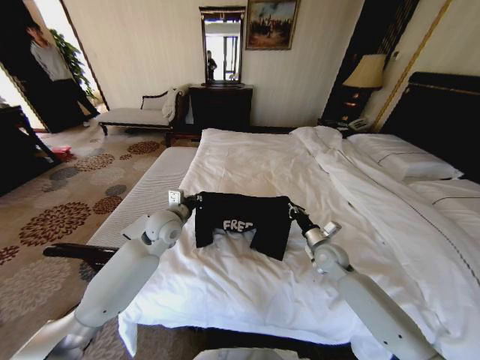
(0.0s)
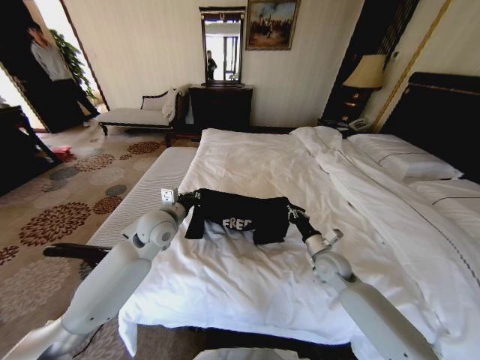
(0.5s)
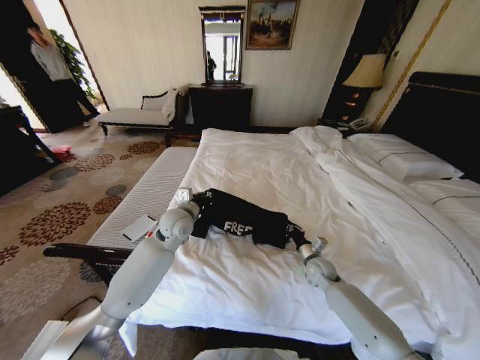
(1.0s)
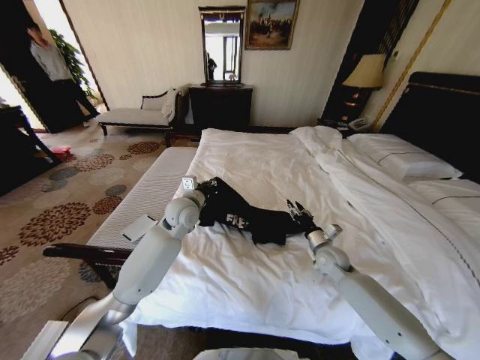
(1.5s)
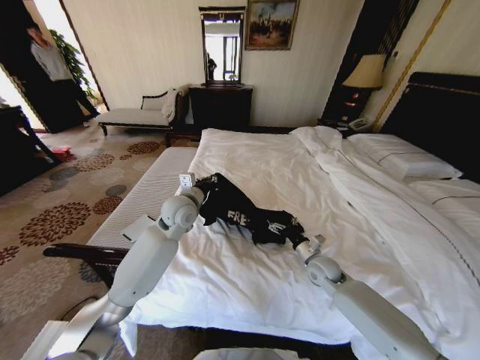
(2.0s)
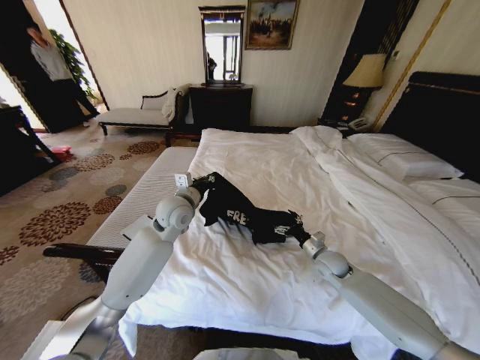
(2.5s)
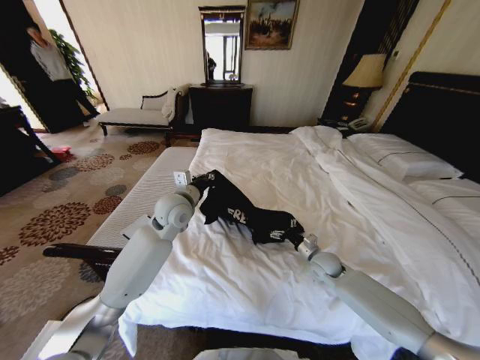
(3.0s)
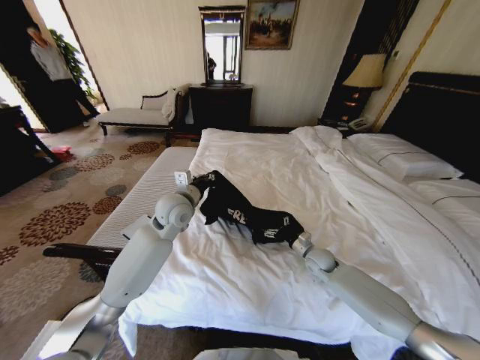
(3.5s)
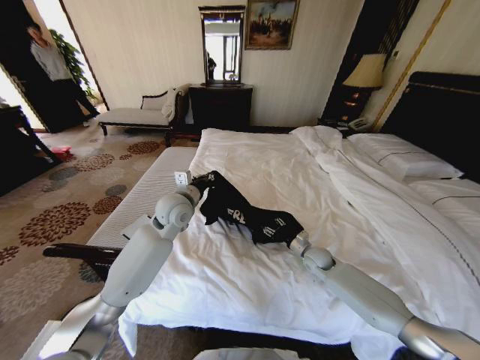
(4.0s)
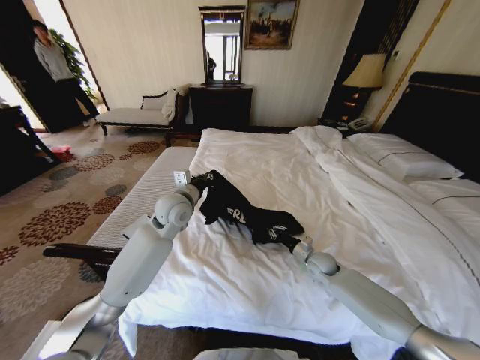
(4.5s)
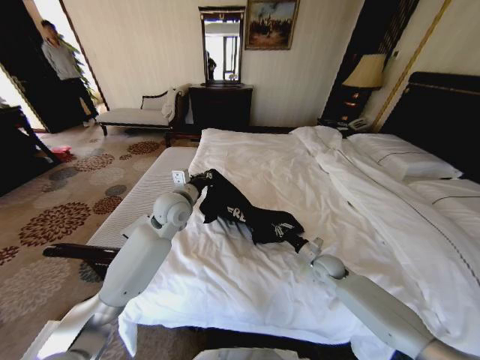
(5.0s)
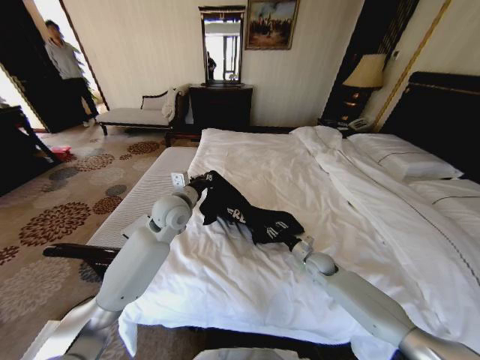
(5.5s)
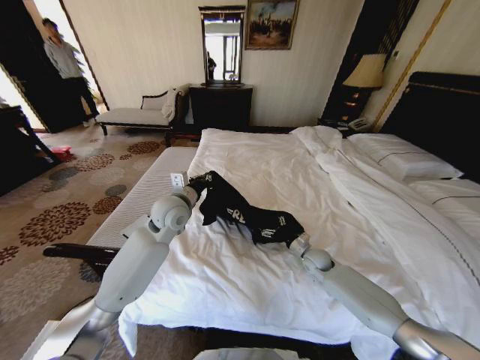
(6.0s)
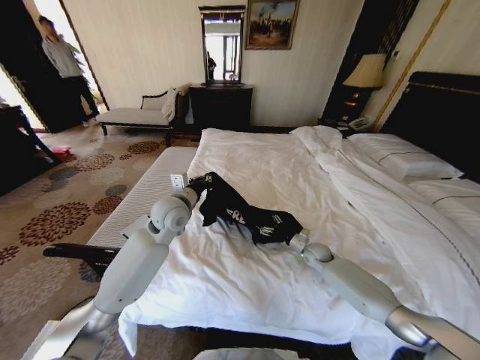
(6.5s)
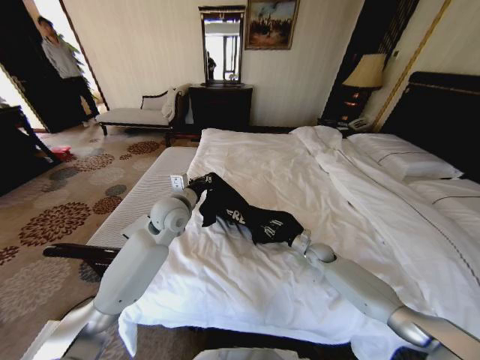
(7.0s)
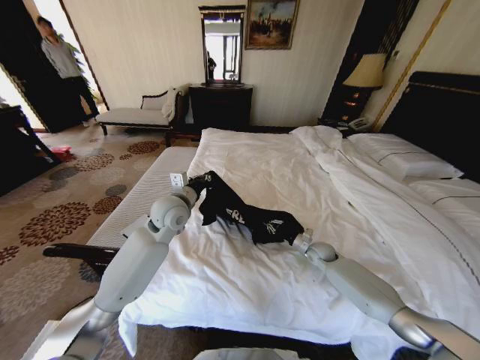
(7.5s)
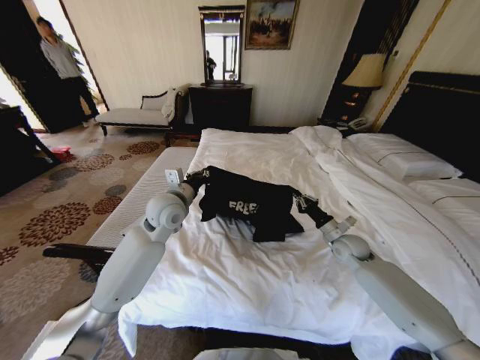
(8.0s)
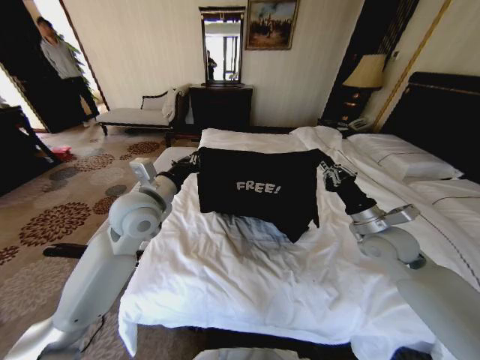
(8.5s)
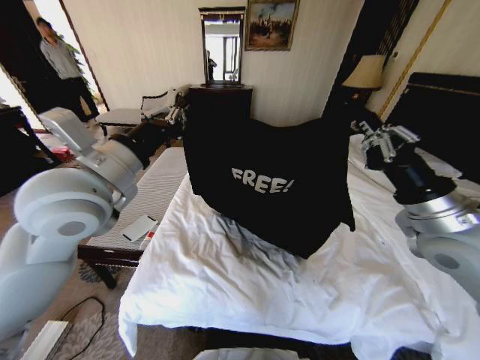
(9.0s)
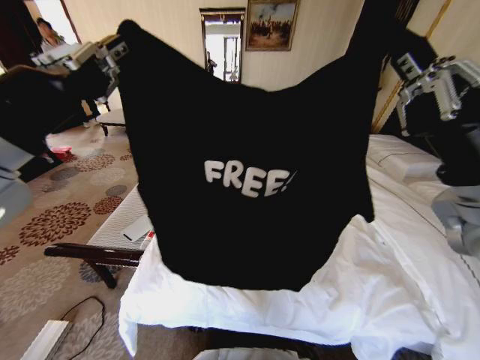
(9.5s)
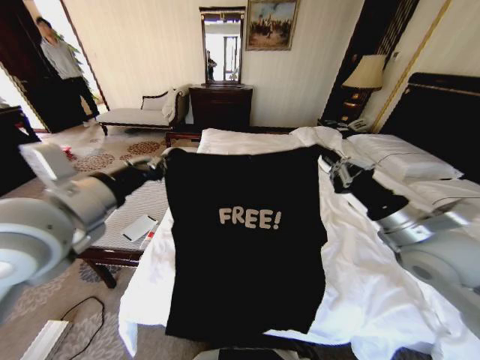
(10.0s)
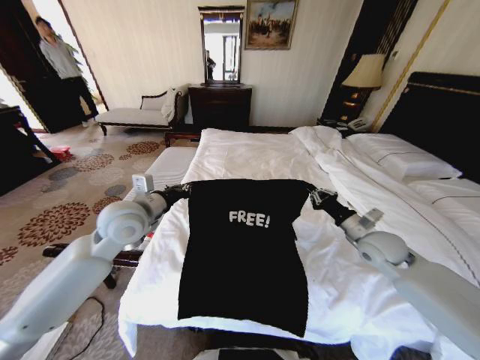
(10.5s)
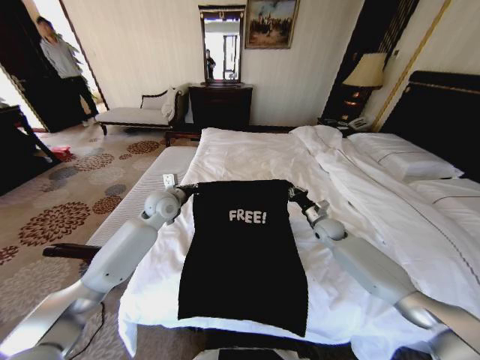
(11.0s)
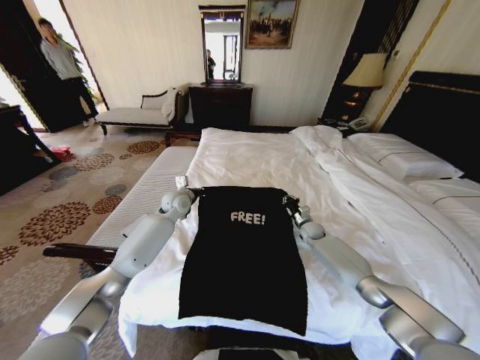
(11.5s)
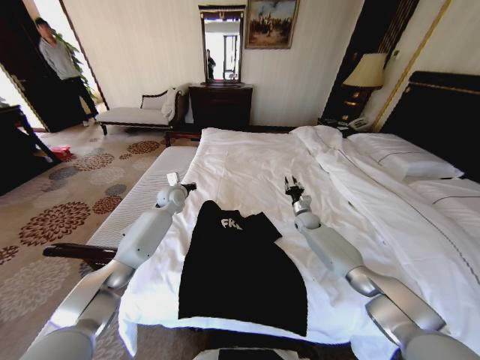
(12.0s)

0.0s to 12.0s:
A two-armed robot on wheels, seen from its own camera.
Task of the whole recording: Fold the clothes on the bed.
0.0s to 2.0s: The left gripper ends up approximately 5 cm from where it was. Meanwhile the right gripper opens its fingers.
2.0s to 4.0s: The right gripper goes about 5 cm forward.
4.0s to 6.0s: The right gripper closes, then opens again.
6.0s to 8.0s: The right gripper goes about 15 cm upward and to the right, and closes its fingers.
8.0s to 10.0s: The right gripper goes roughly 25 cm upward and backward; the left gripper goes approximately 25 cm backward, upward and to the left.
10.0s to 12.0s: Both grippers travel together forward and downward, about 40 cm.

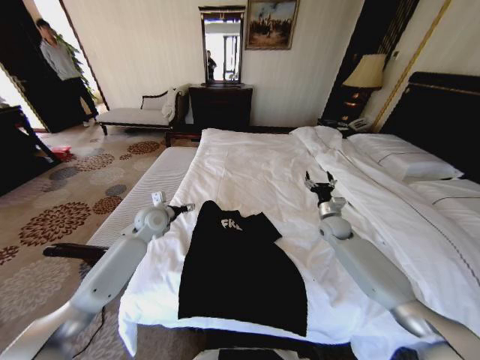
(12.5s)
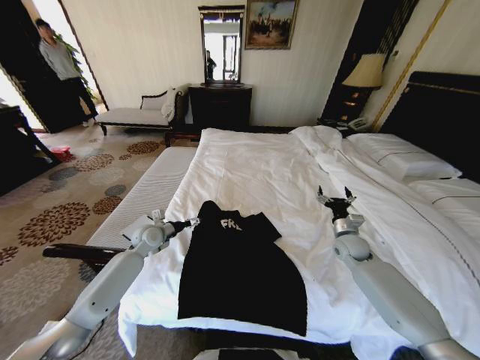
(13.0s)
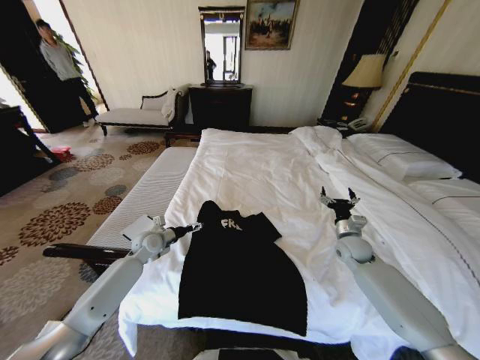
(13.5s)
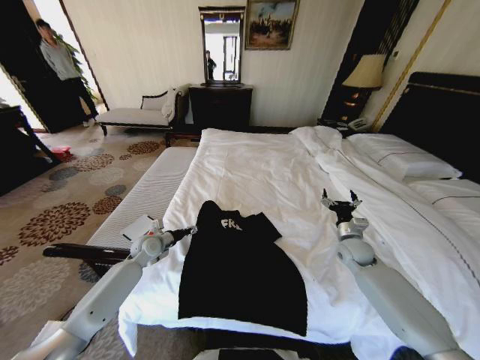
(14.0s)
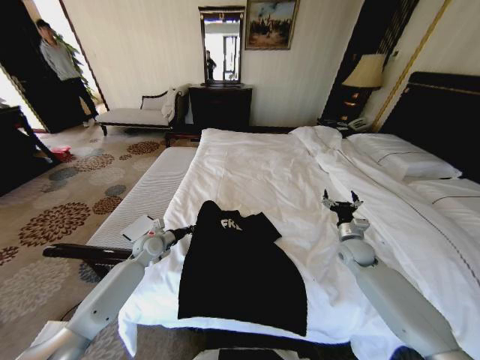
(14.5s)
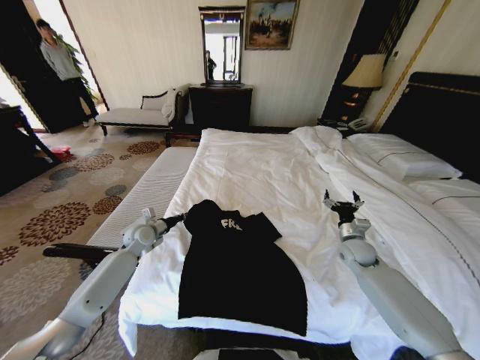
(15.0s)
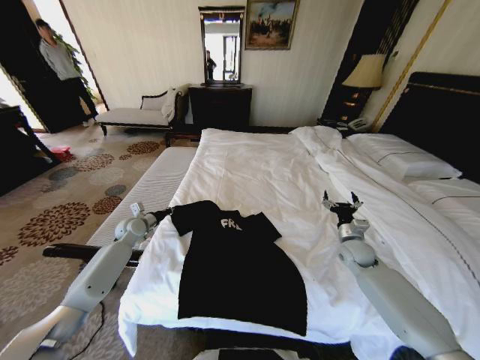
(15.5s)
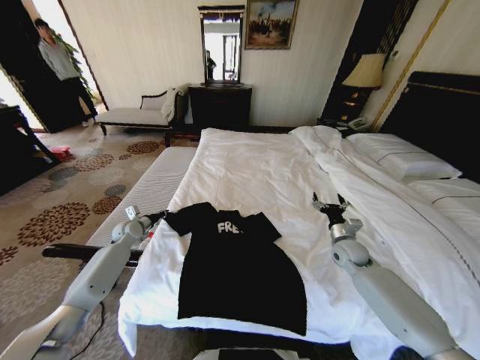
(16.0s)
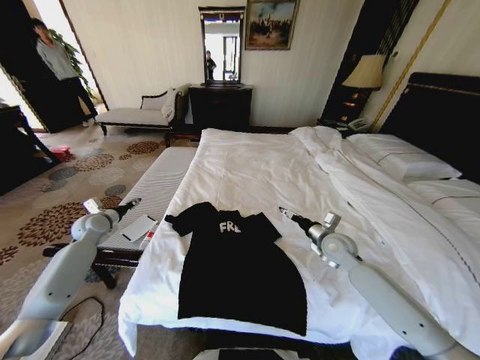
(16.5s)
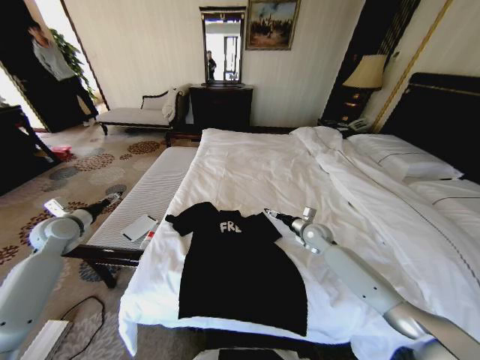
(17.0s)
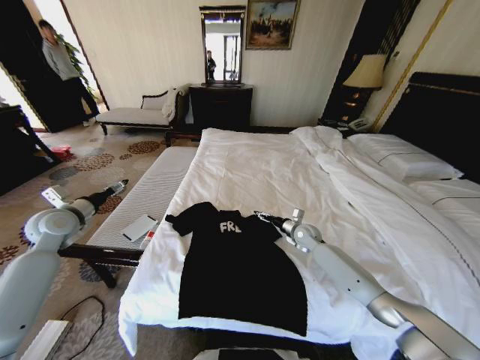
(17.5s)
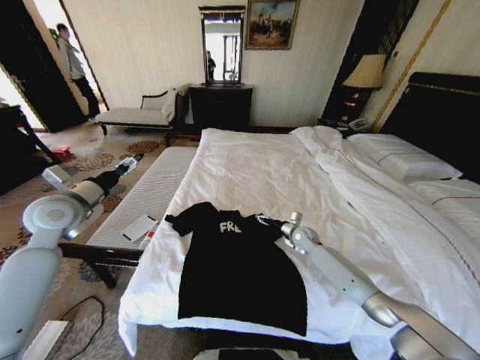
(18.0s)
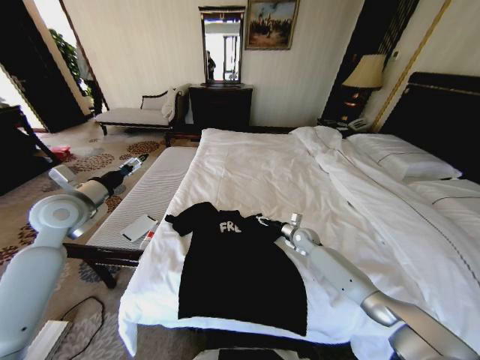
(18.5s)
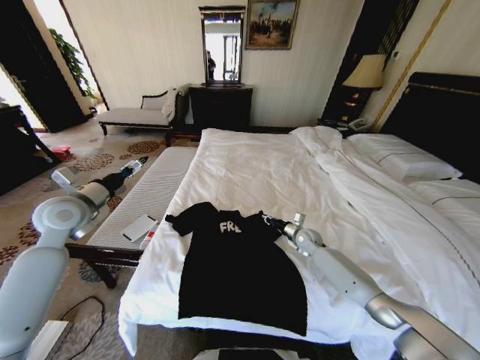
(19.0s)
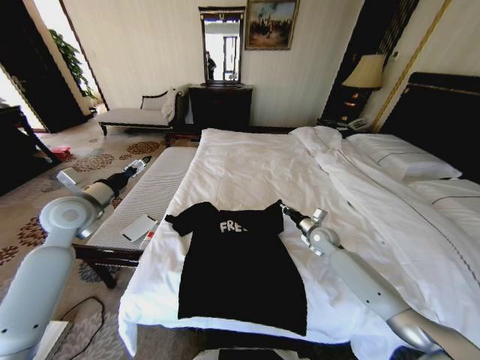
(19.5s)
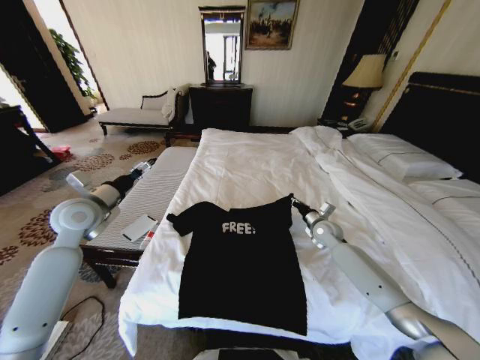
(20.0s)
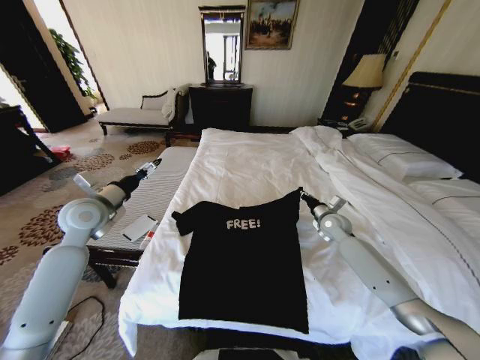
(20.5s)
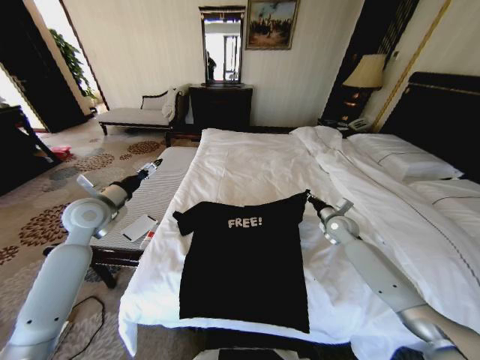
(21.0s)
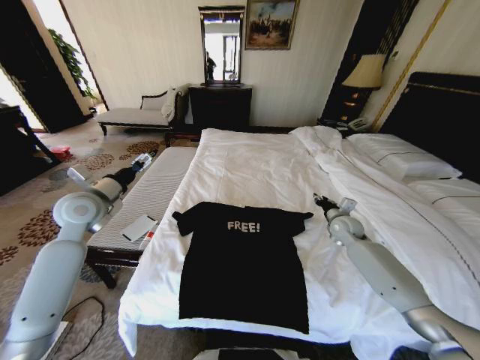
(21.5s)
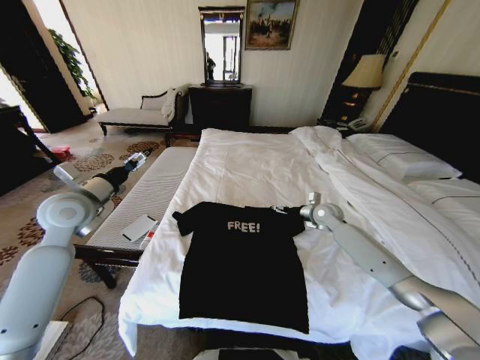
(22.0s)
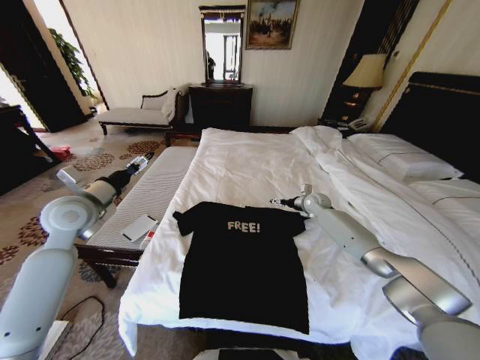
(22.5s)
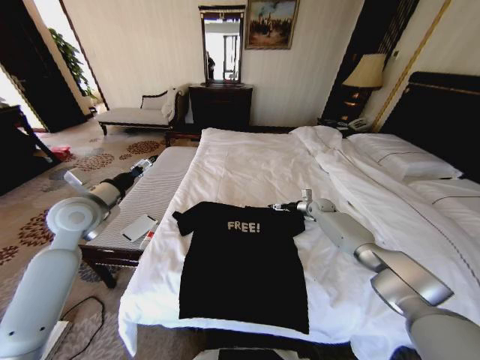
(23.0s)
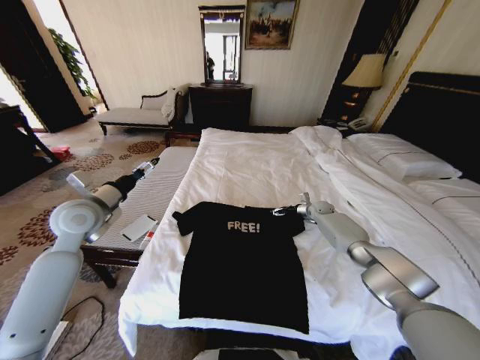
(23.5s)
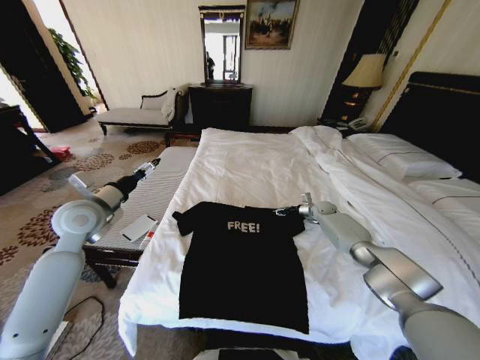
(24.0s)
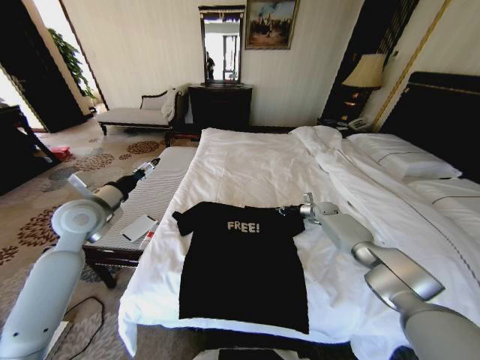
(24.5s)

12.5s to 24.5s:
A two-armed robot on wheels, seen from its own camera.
Task of the whole recording: Fold the clothes on the bed.
12.5s to 14.5s: The right gripper is displaced backward by roughly 10 cm. Meanwhile the left gripper is displaced downward by roughly 10 cm, and closes up.
14.5s to 16.5s: The right gripper is displaced to the left by roughly 10 cm, while the left gripper is displaced to the left and upward by roughly 20 cm, and opens up.
16.5s to 18.5s: The right gripper is displaced downward and forward by about 15 cm, while the left gripper travels upward, backward and to the right by some 20 cm, and opens its fingers.
18.5s to 20.5s: The right gripper heads upward and to the right, covering approximately 10 cm, and closes up.
20.5s to 22.5s: The right gripper heads forward, covering some 10 cm, and opens its fingers.
22.5s to 24.5s: The right gripper shifts some 10 cm to the right and downward, and closes.

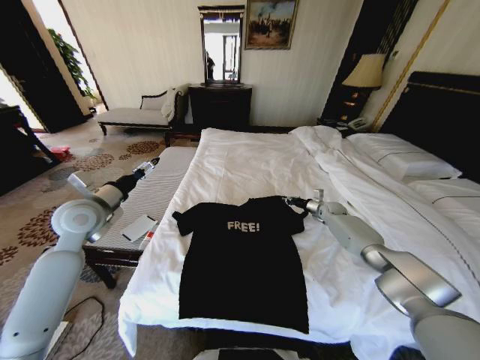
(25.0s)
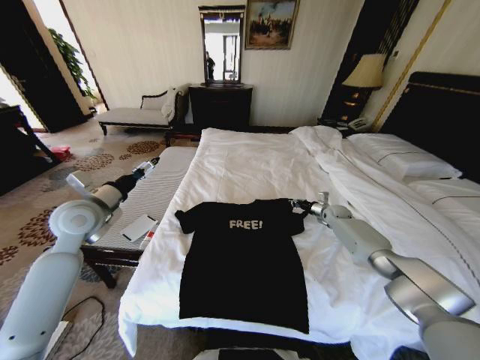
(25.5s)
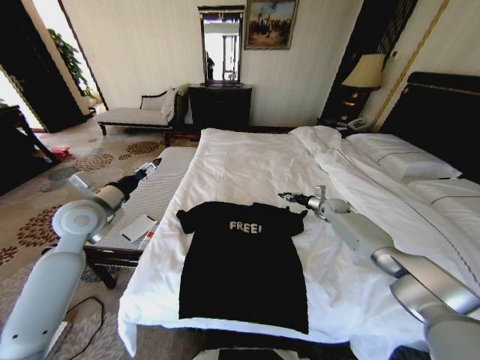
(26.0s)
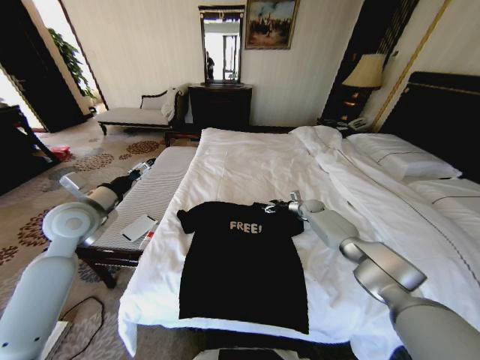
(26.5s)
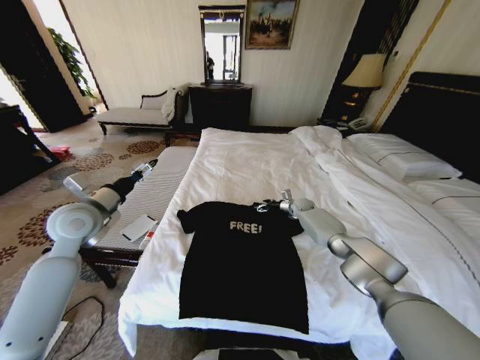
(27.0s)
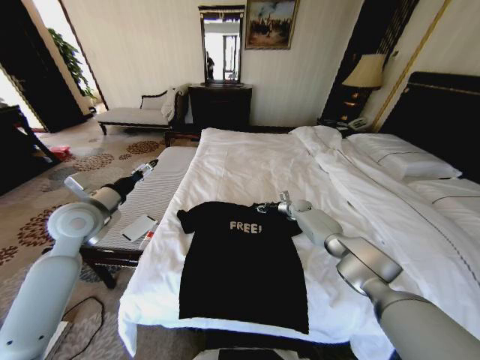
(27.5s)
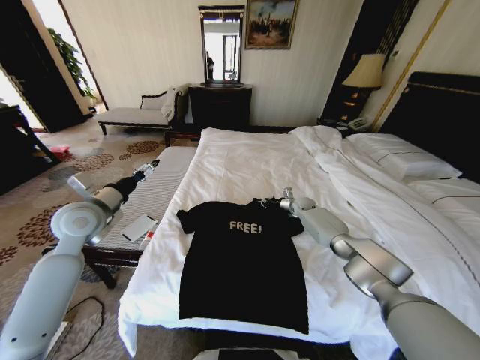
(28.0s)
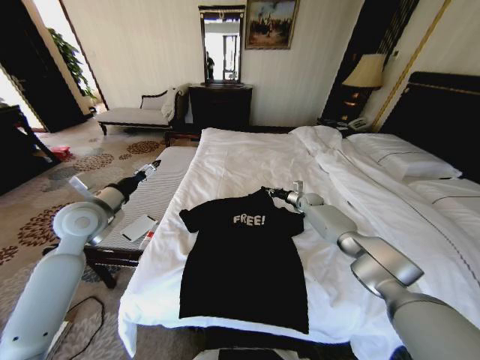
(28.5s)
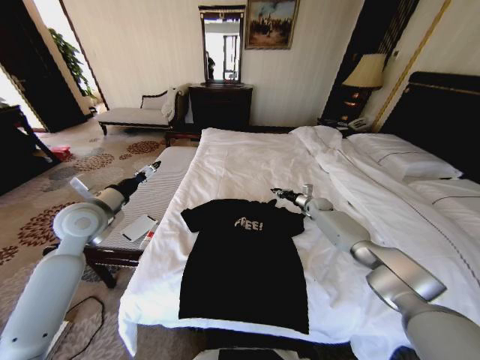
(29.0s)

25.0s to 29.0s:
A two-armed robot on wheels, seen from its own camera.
Task of the whole recording: Fold the clothes on the bed.
25.0s to 27.0s: The right gripper goes approximately 10 cm to the left, and opens.
27.0s to 29.0s: The right gripper is displaced to the right by approximately 5 cm, and closes its fingers.
